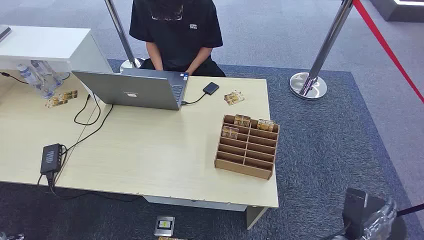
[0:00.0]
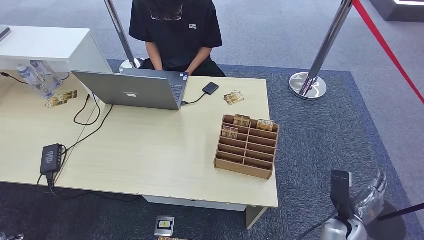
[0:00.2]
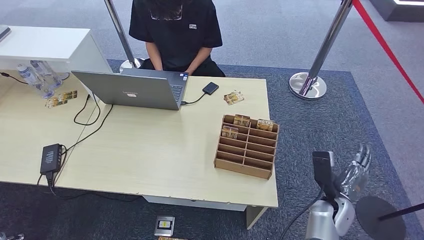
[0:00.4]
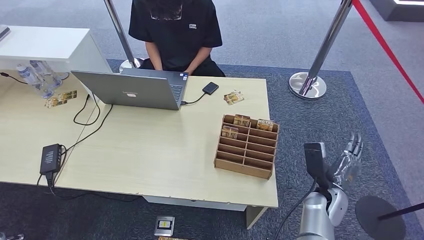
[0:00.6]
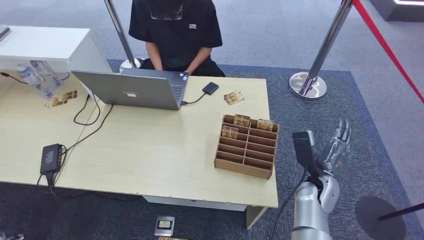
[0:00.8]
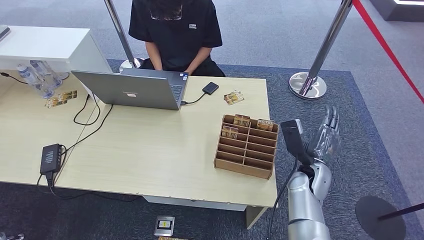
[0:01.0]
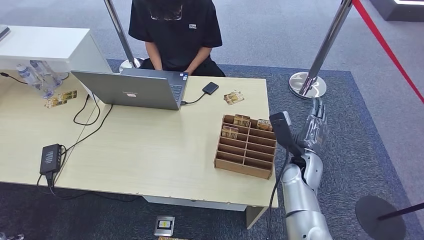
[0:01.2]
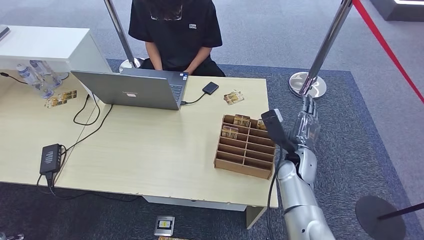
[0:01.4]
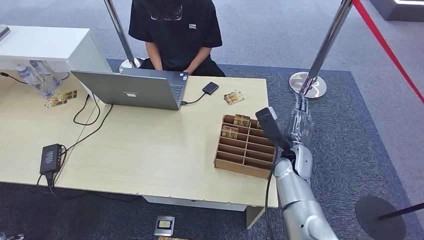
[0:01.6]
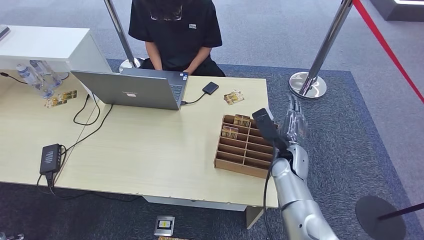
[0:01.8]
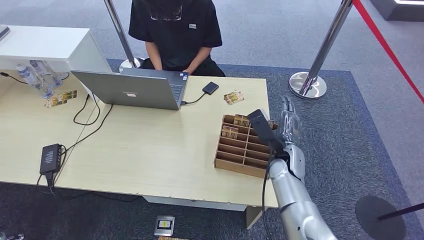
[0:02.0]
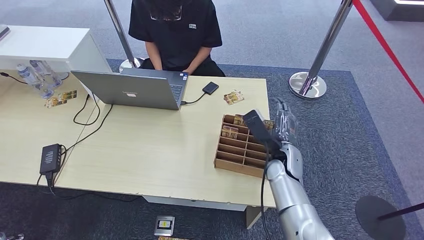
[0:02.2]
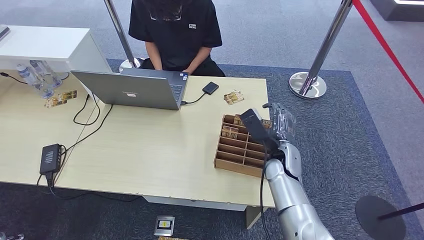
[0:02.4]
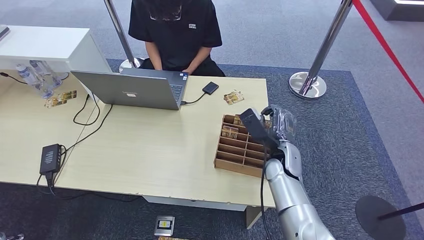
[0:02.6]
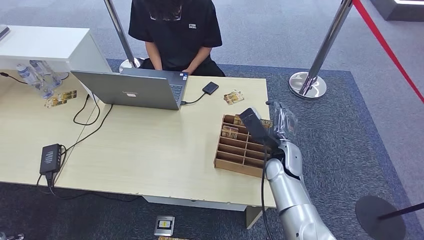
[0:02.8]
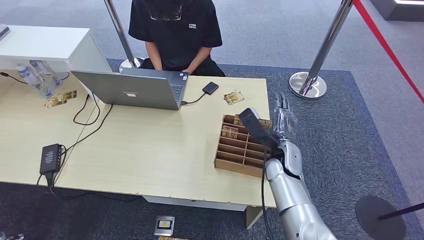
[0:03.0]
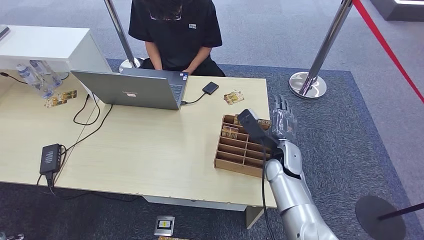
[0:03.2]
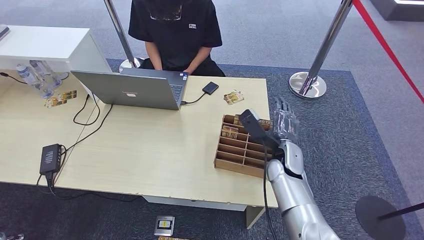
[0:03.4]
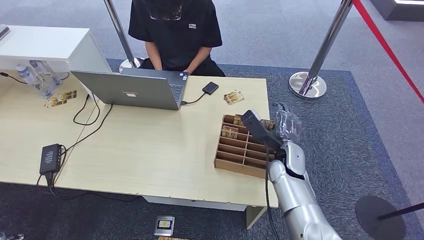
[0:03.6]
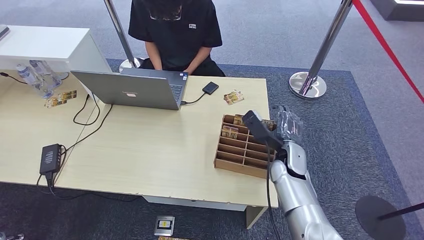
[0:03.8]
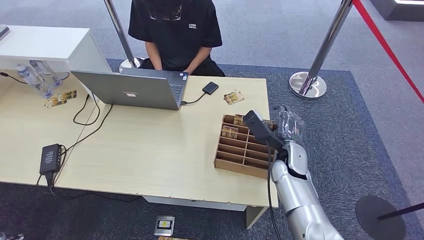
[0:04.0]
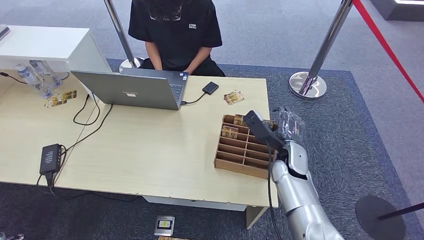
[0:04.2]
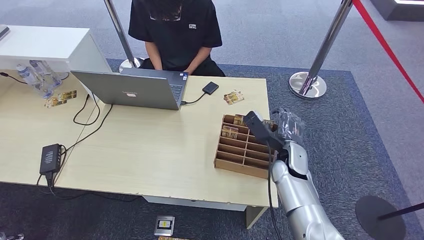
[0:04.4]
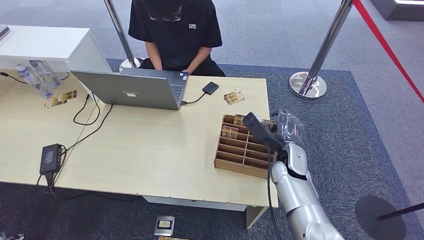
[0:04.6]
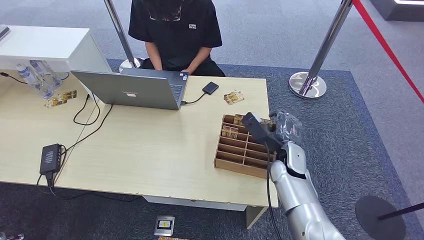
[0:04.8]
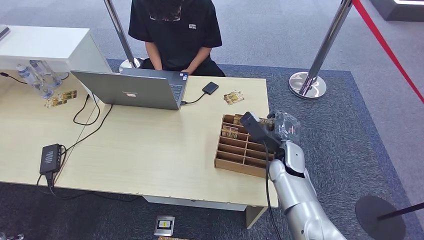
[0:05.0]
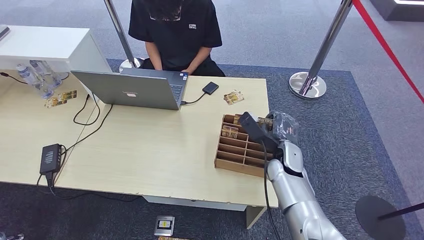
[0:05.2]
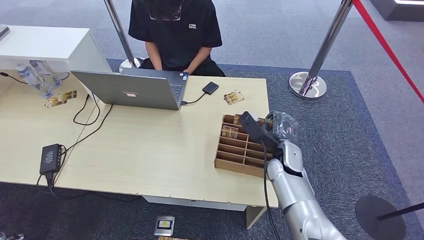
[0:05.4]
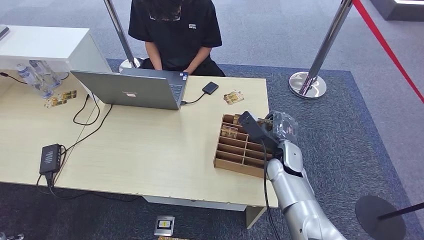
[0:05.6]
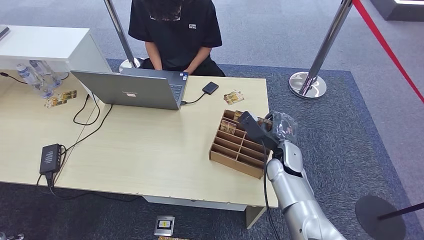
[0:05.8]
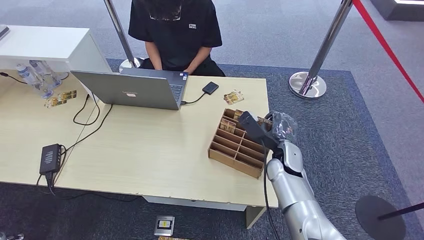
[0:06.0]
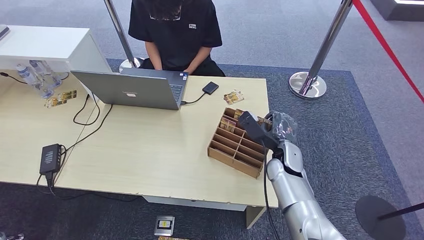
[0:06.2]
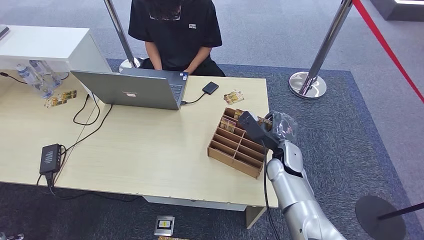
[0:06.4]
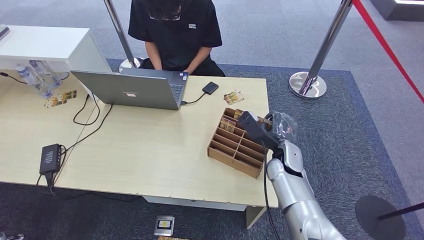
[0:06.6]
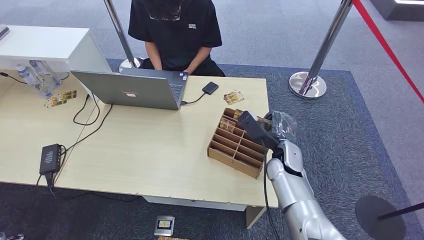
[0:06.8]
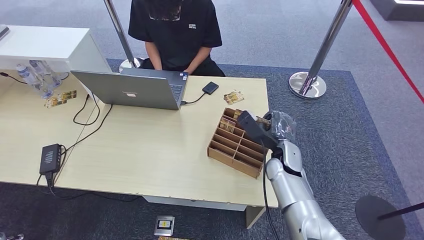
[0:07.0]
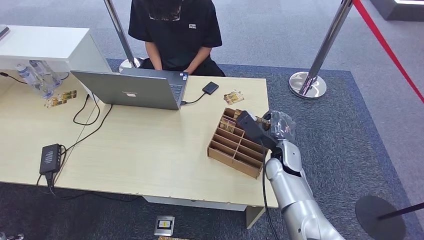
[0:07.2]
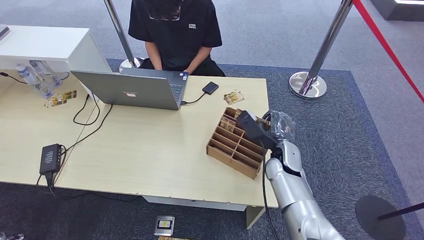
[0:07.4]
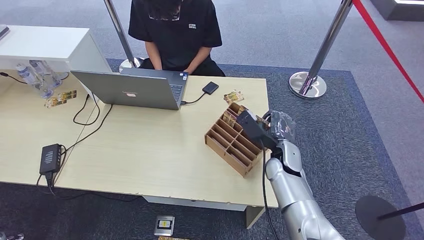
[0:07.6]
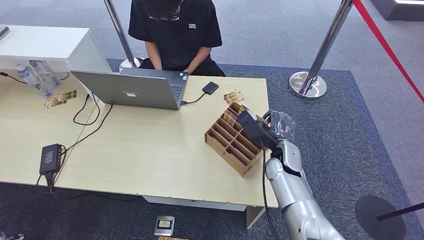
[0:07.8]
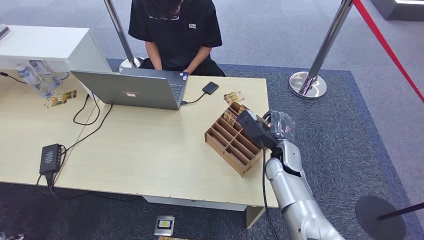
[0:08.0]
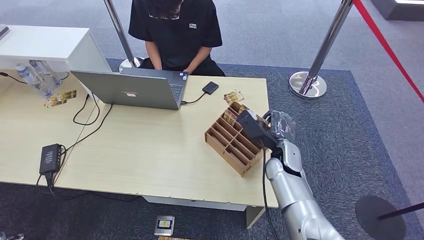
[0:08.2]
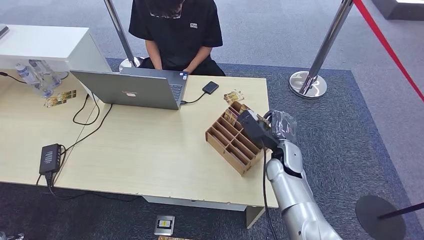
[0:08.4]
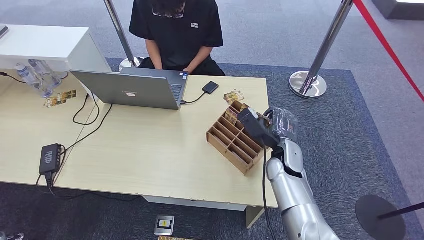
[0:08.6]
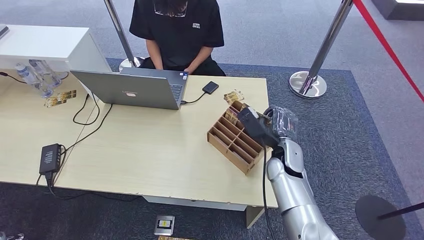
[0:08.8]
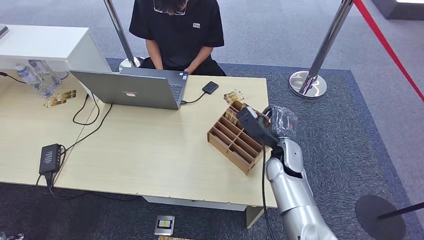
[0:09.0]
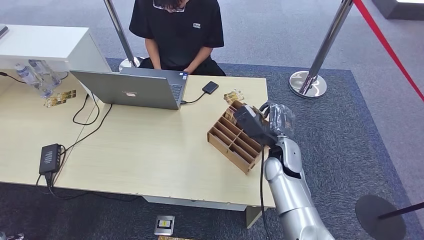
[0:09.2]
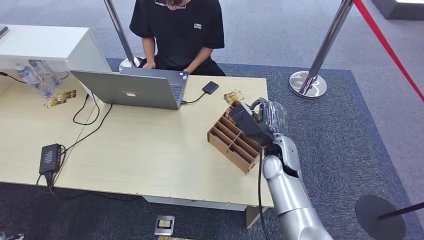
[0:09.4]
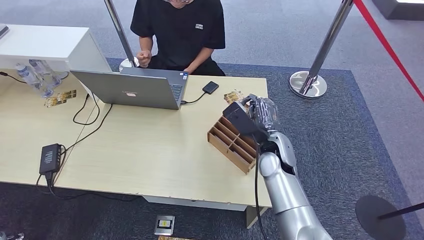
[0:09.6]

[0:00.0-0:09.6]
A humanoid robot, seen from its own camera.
0:01.6 to 0:04.8: The hands stay close to where they were, moving slightly.
0:04.8 to 0:08.0: Both hands stay about where they are.
0:08.0 to 0:09.6: The right hand moves upward, approximately 5 cm.

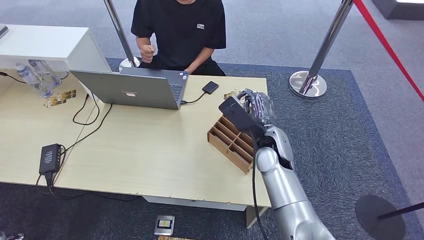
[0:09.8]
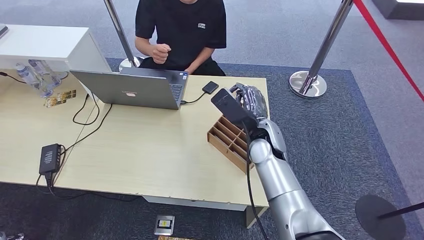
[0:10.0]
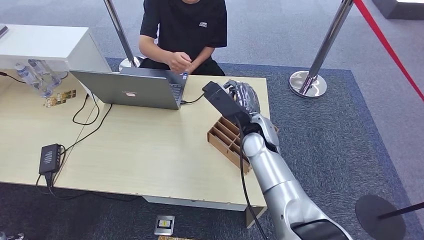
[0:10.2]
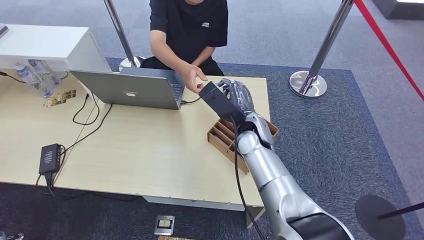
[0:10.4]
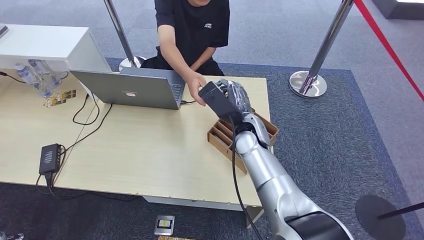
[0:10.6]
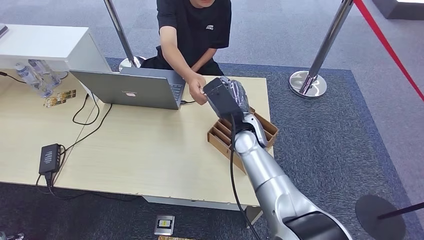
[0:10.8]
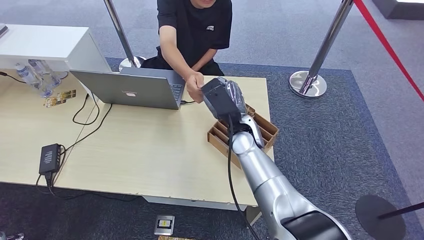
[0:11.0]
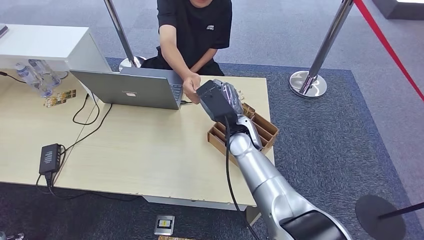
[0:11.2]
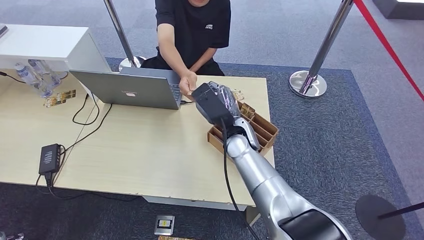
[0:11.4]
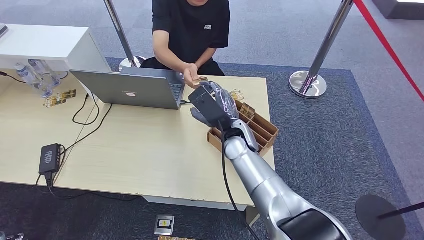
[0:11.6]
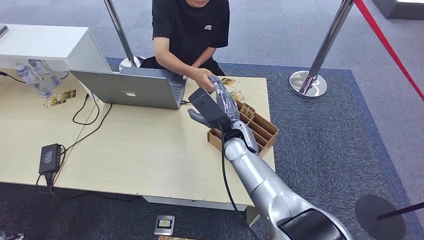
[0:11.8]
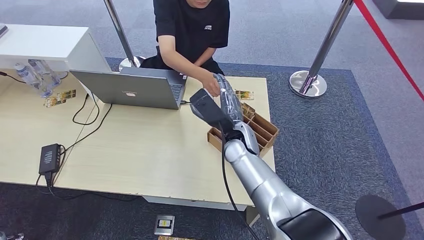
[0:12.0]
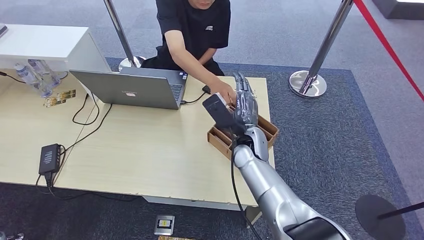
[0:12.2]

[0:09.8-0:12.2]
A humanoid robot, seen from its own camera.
Step, 0:10.0 to 0:12.2: Hand the key card to the target.
0:09.8 to 0:11.0: The right hand goes about 5 cm to the left.
0:11.0 to 0:12.2: The hands move only a little.
